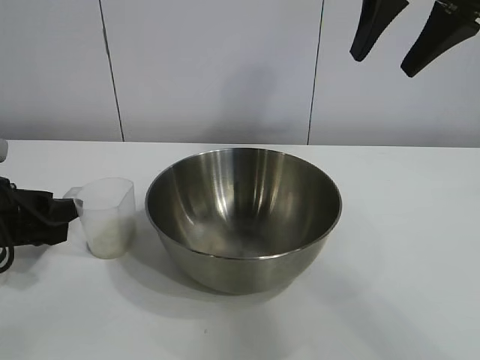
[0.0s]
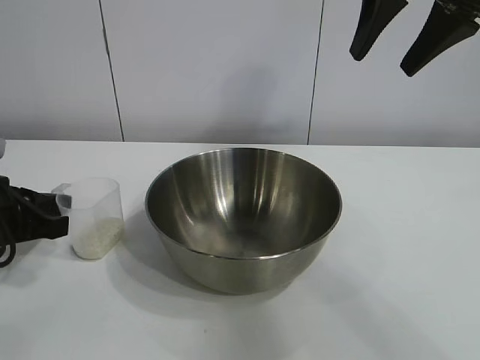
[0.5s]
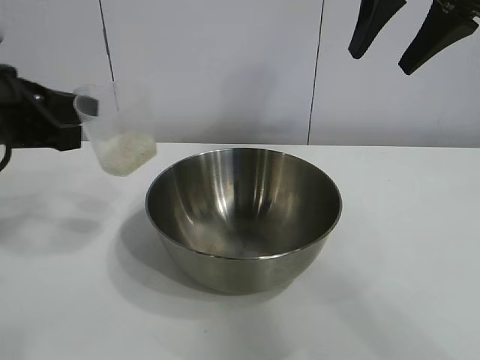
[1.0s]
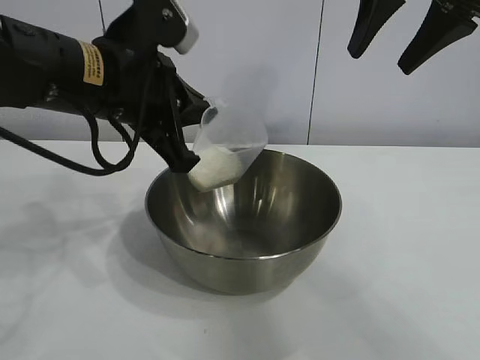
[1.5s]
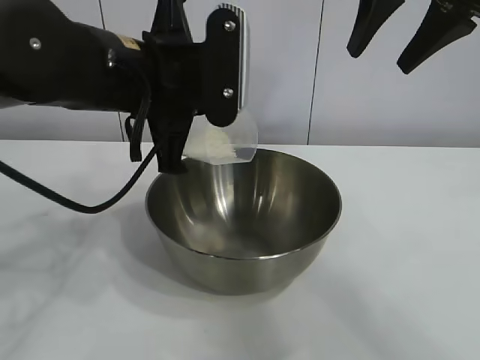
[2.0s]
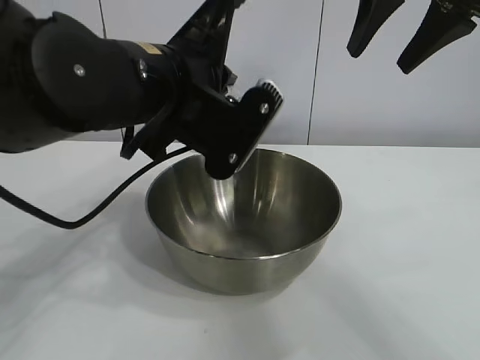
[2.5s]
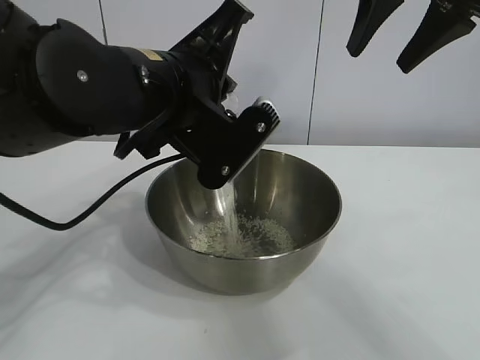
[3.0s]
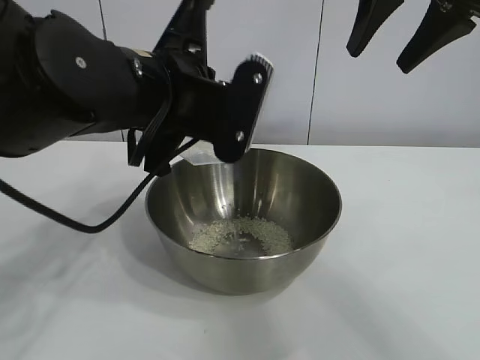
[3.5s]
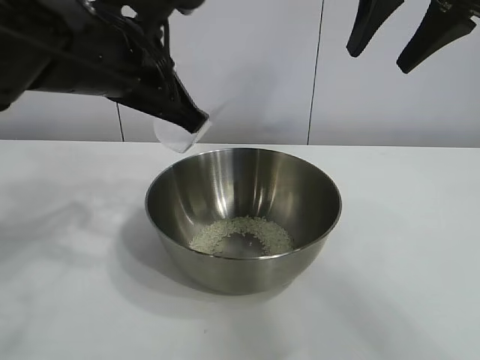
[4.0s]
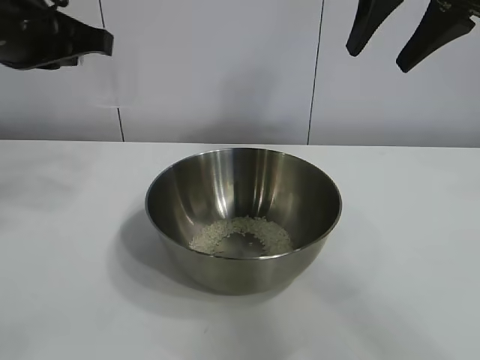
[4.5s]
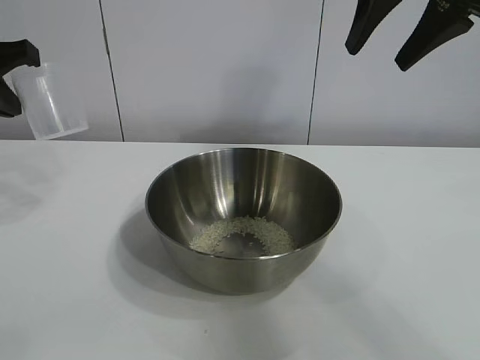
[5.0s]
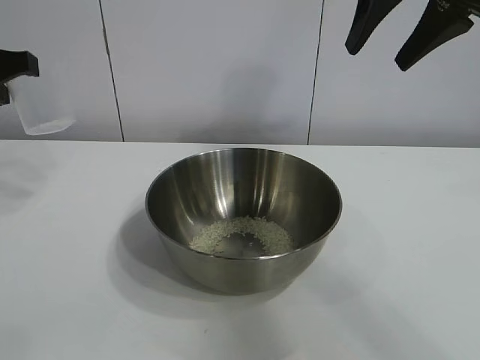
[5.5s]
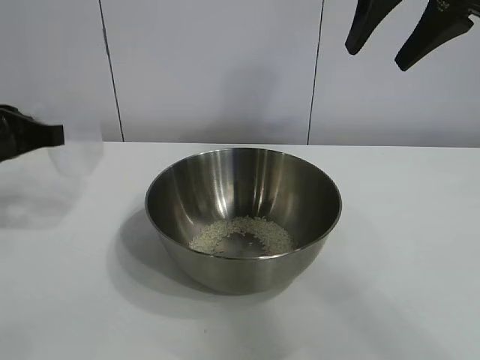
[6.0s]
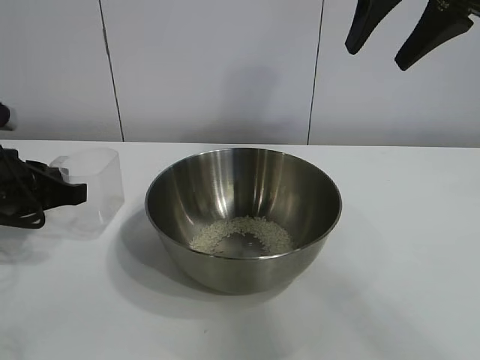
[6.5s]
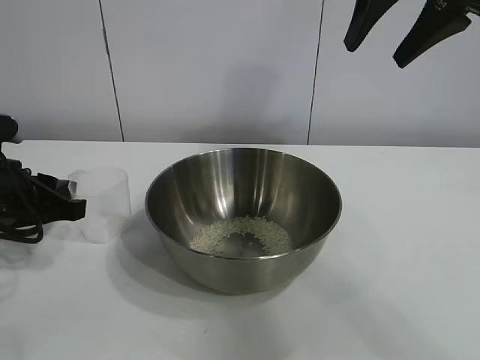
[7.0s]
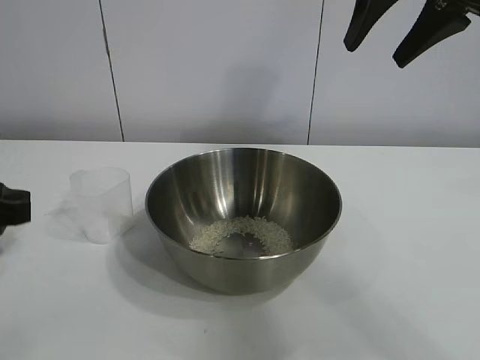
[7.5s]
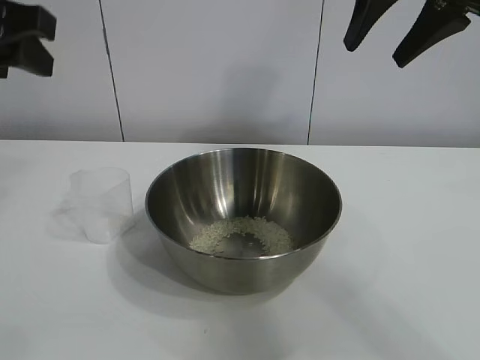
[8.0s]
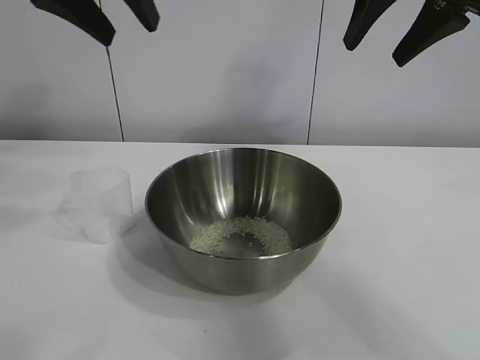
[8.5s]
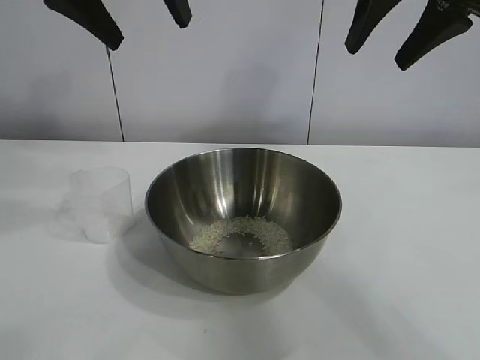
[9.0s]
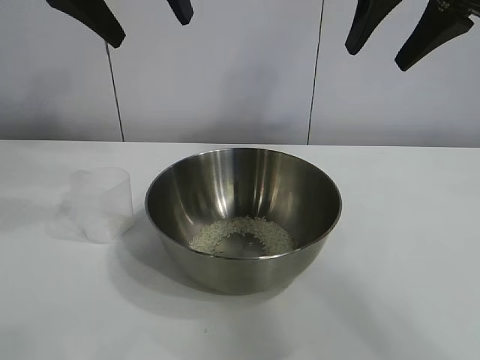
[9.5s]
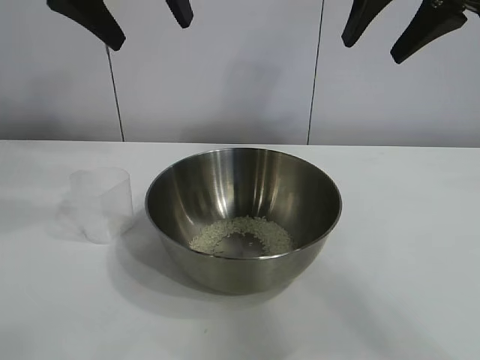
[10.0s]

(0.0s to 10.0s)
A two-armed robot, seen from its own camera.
Task of the whole recording: the right gripper grasp the rice container and place it in the center of the table, the left gripper grasp the rice scoop and pour the rice into the rice container.
Step, 0.5s - 3.5s: Pour the rice from the cup into the bowl with the left gripper.
Step, 4.0s - 6.5s: Place the cup on the table with the left gripper.

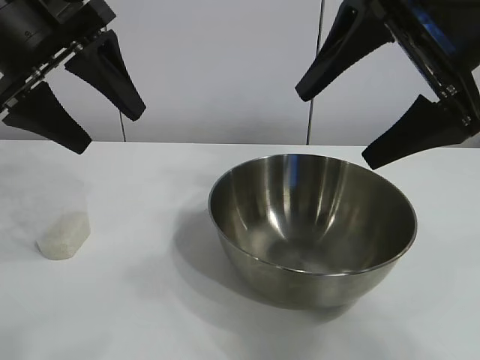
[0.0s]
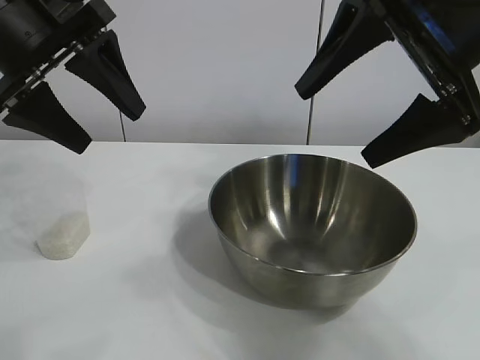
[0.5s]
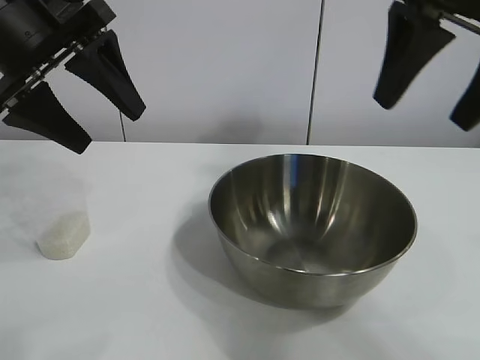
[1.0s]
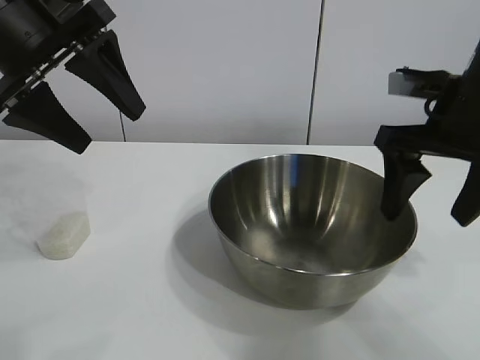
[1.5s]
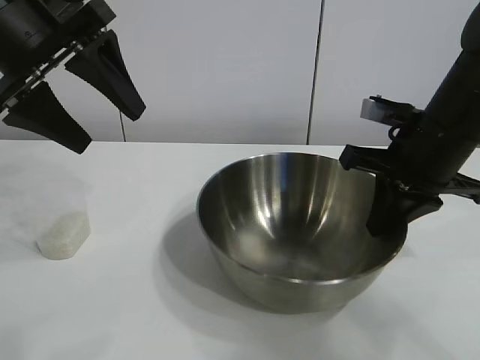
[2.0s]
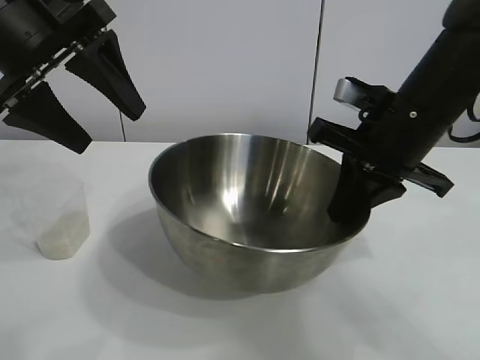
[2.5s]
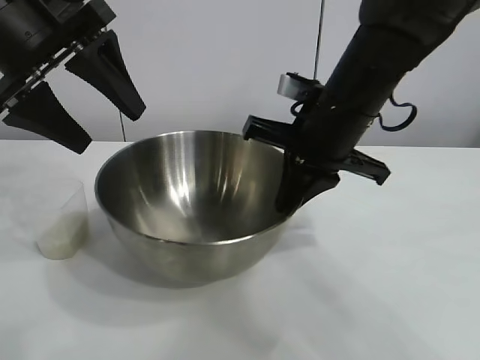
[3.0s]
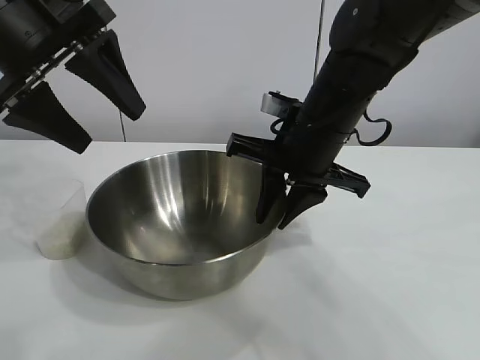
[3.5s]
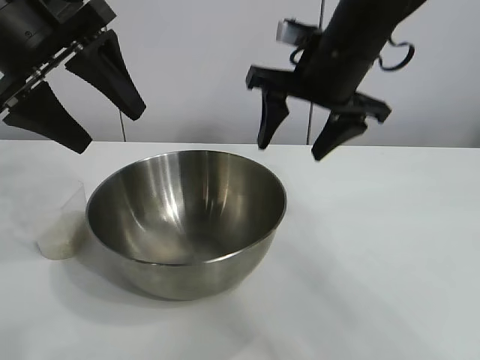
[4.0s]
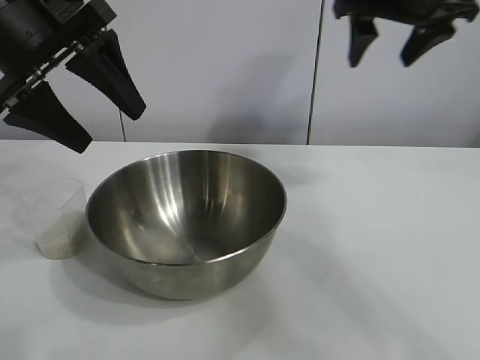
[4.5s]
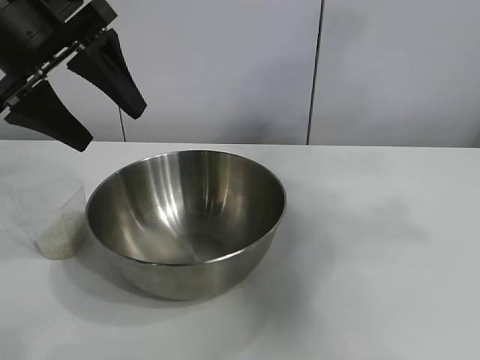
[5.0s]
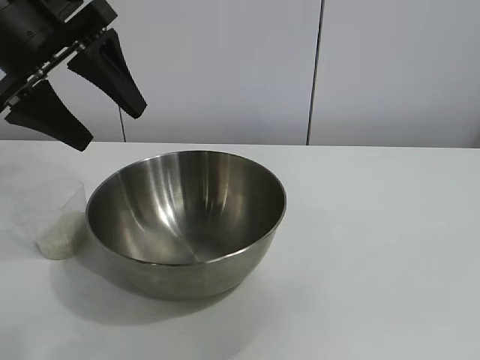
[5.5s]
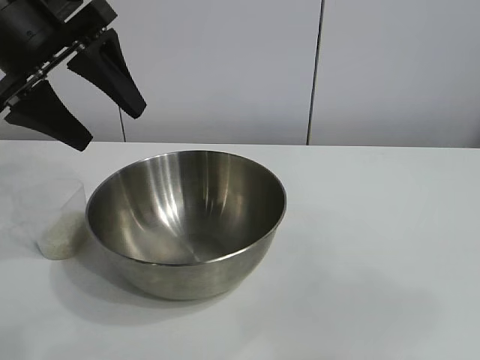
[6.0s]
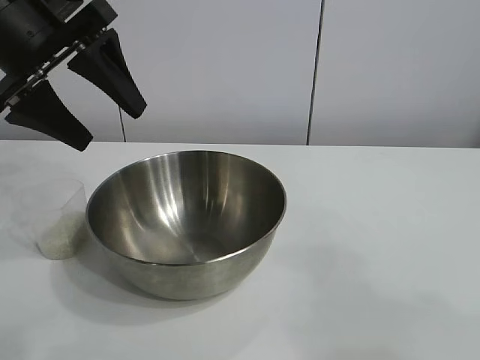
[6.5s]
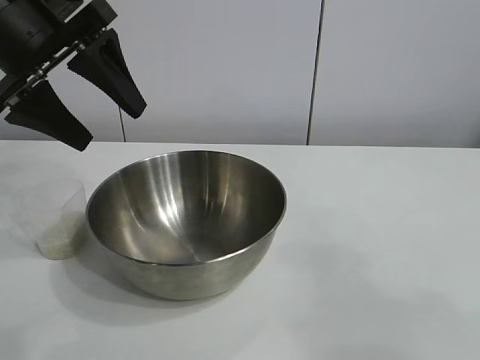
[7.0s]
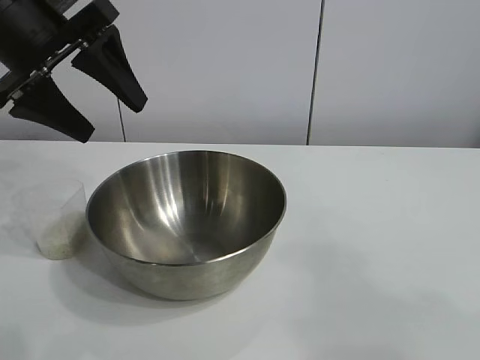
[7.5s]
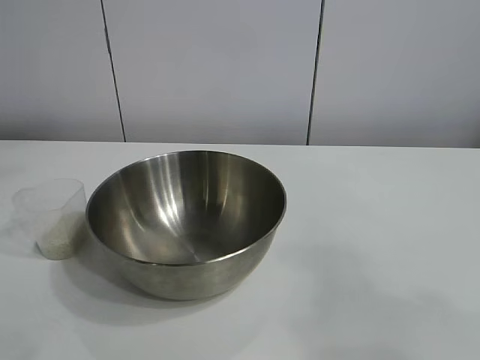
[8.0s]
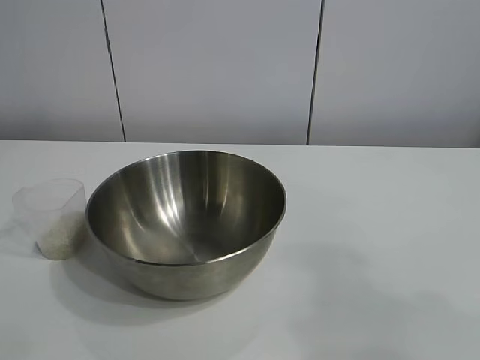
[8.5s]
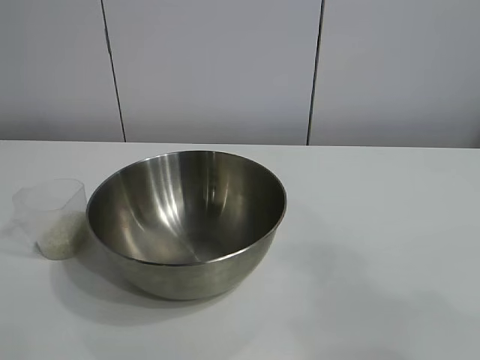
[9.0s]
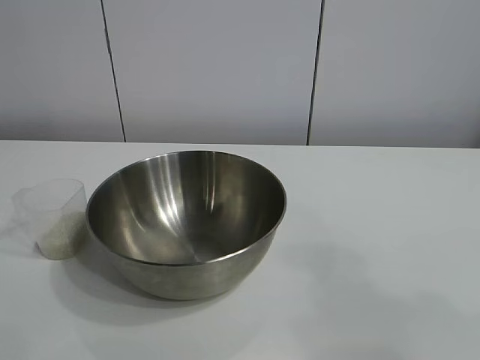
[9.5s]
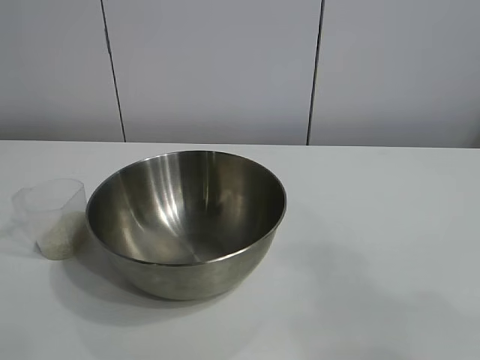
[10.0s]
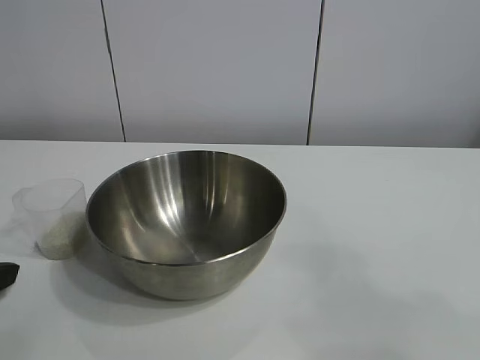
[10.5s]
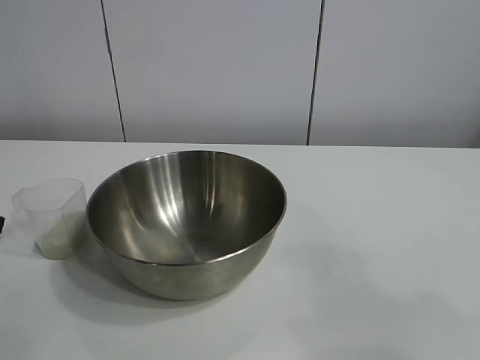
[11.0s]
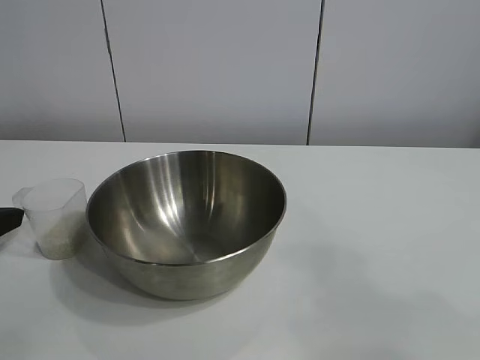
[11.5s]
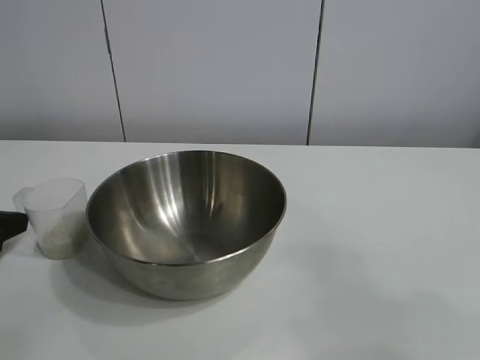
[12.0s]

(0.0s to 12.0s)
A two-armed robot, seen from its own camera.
Task of the whole recording: the right gripper grasp the rice container and place it in the center of the table, the left gripper grasp the rice scoop and pour the rice into the rice container.
Step, 1.0s - 3.5s: Move the bowl in the center of view with right gripper.

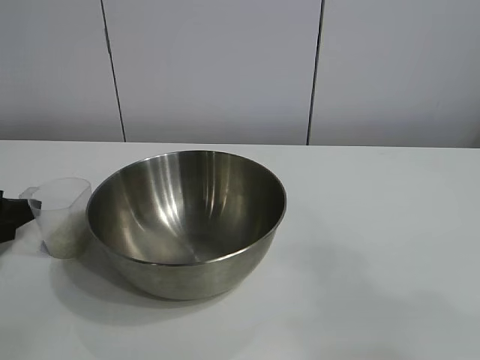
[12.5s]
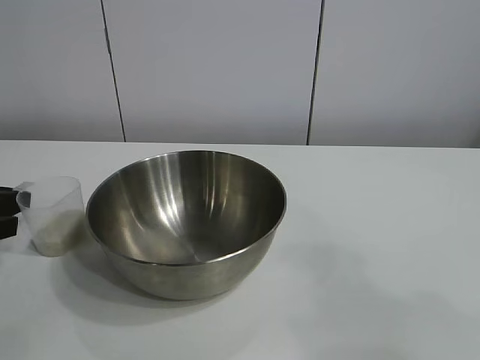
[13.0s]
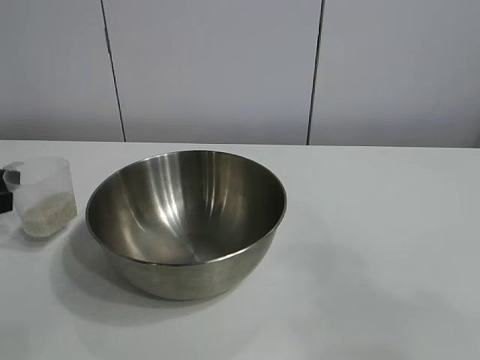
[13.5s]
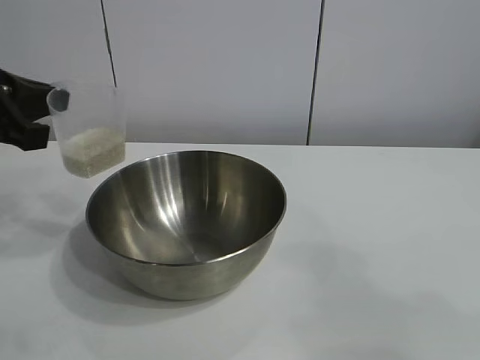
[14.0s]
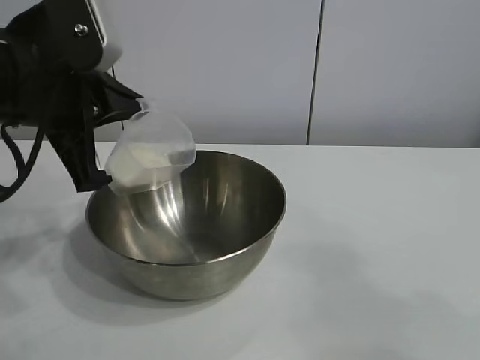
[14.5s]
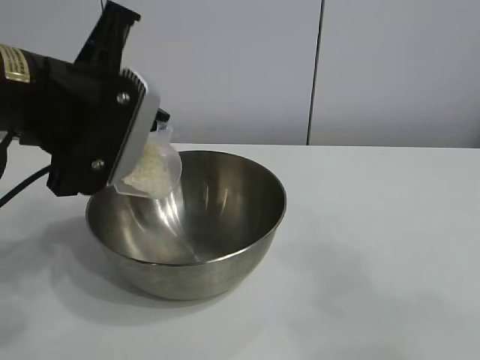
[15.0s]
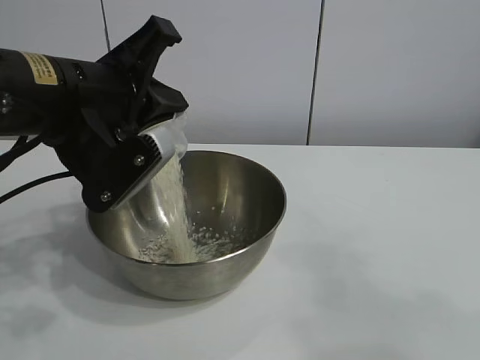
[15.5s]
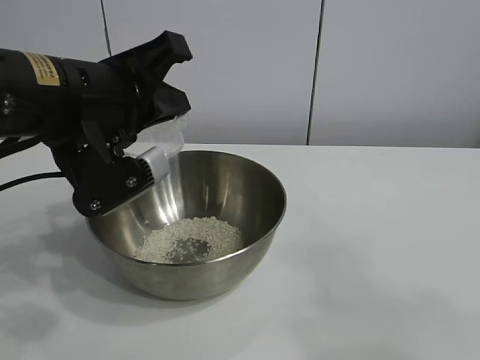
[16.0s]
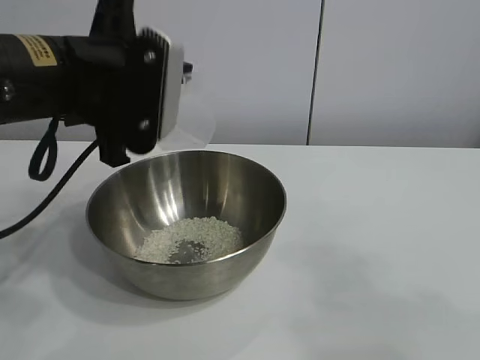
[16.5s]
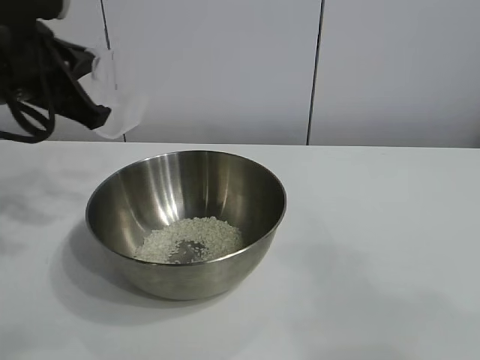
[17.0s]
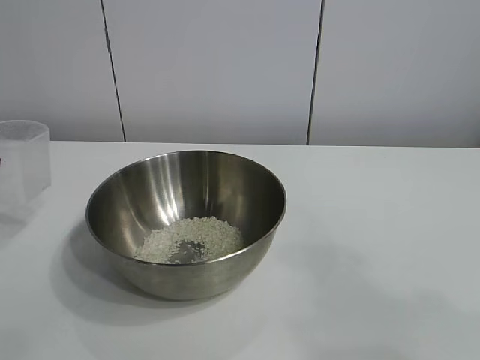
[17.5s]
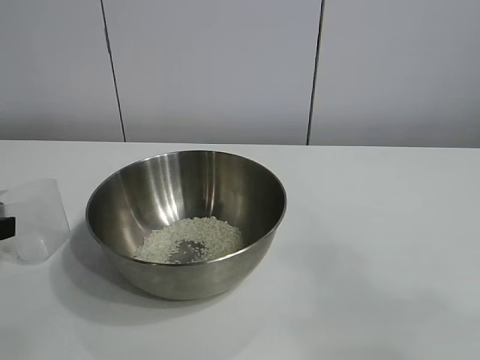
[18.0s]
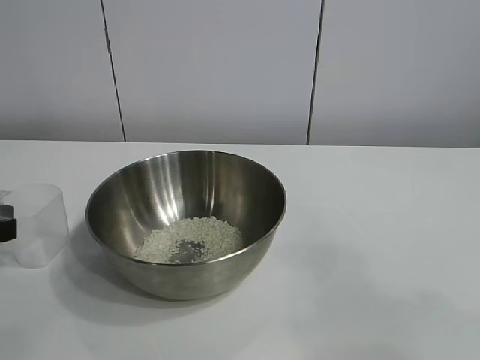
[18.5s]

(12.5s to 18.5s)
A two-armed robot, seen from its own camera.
Task of the whole recording: the right gripper grasp the rice container and place it in the center of the table, the left gripper grasp the rice scoop and pour the rice into the rice container.
Step, 13.5s - 16.0s: Pour the rice from the cup into the bowl with the left gripper.
